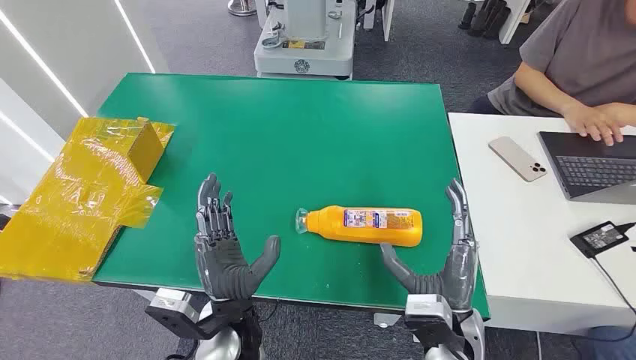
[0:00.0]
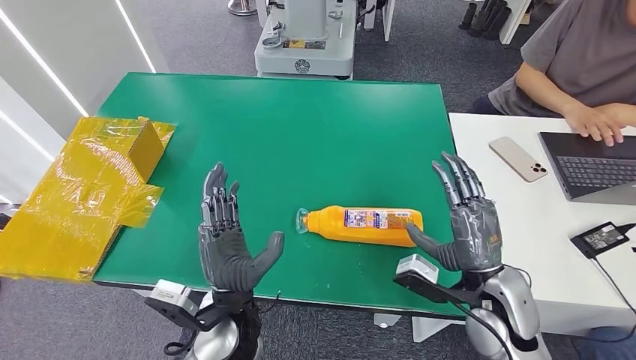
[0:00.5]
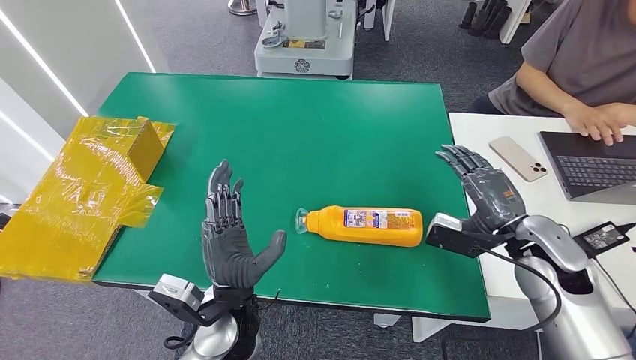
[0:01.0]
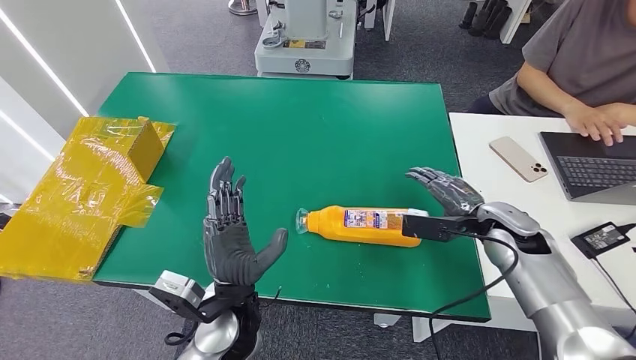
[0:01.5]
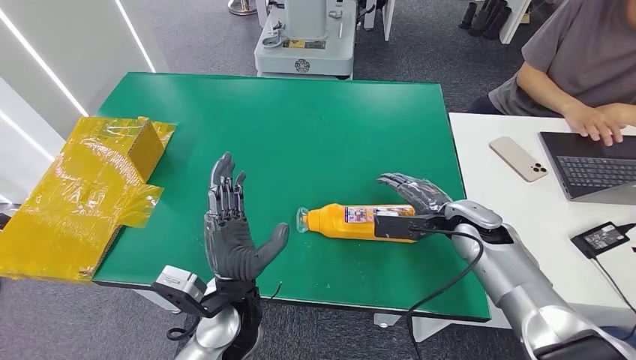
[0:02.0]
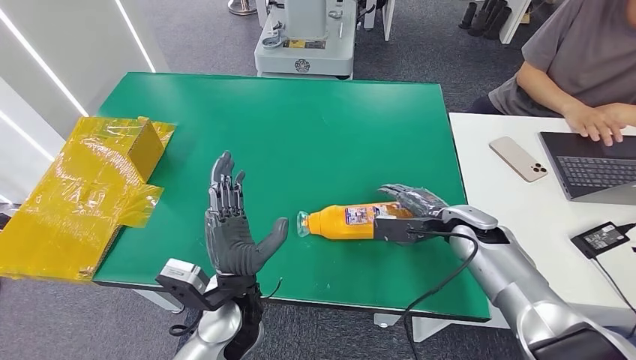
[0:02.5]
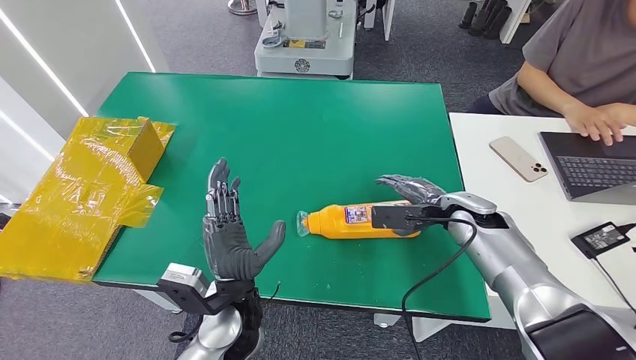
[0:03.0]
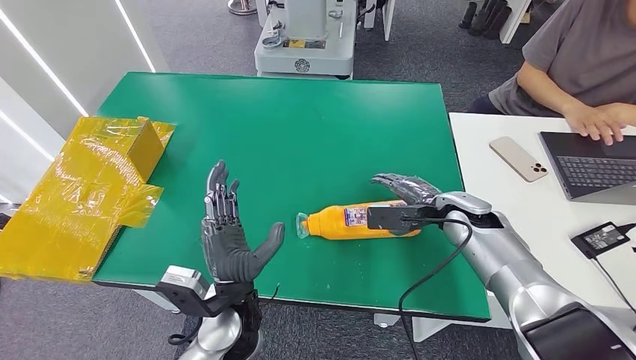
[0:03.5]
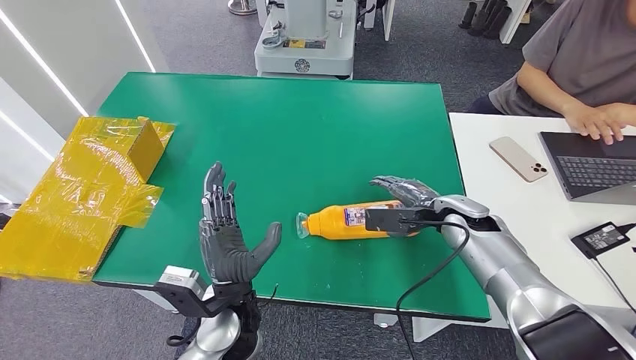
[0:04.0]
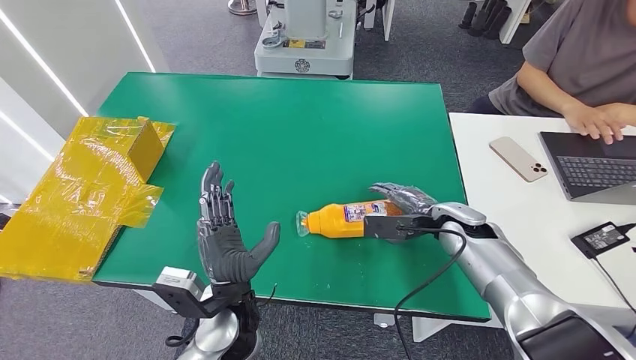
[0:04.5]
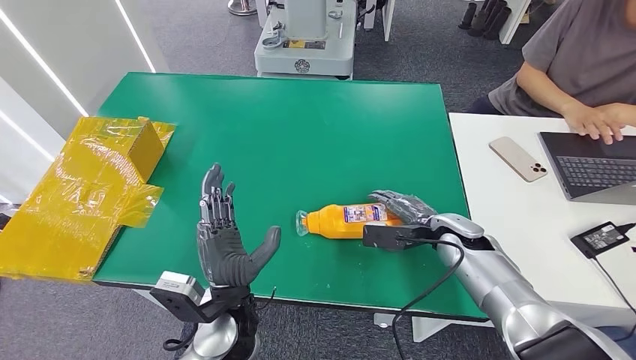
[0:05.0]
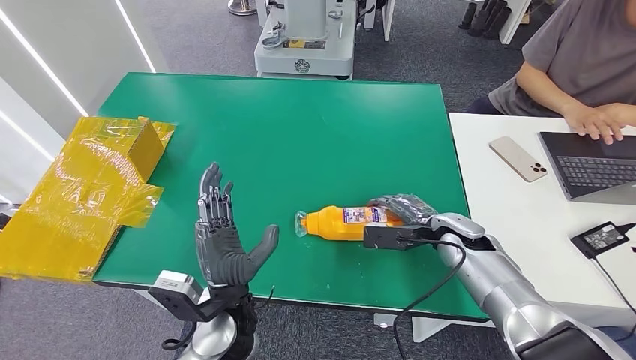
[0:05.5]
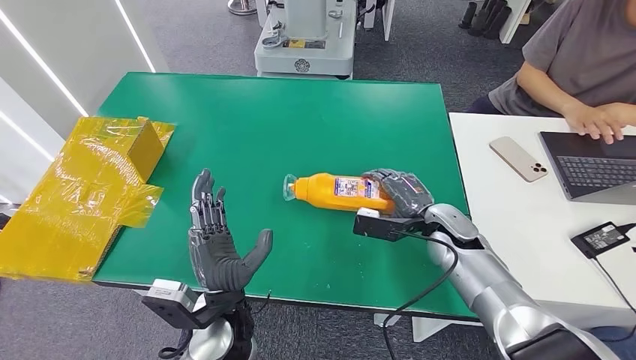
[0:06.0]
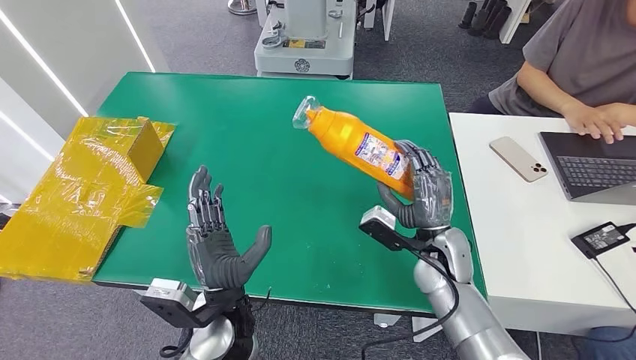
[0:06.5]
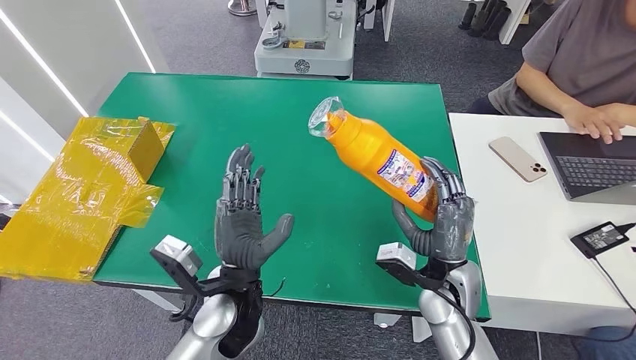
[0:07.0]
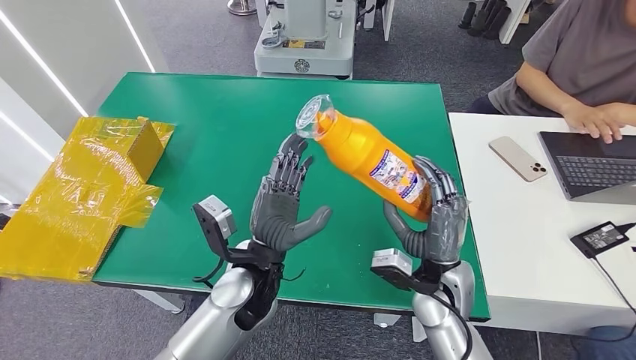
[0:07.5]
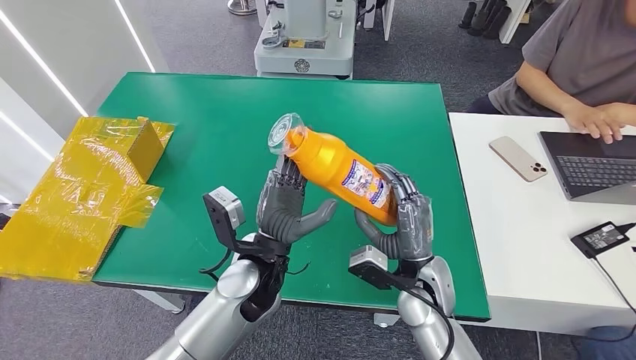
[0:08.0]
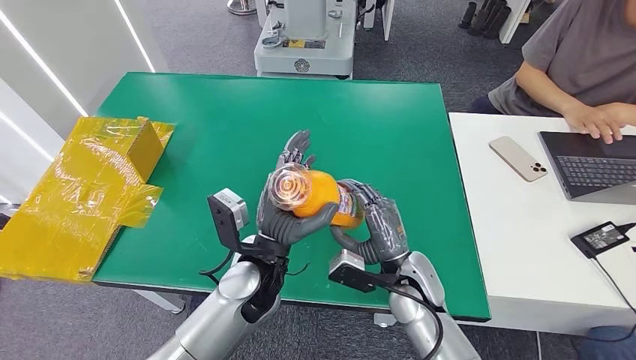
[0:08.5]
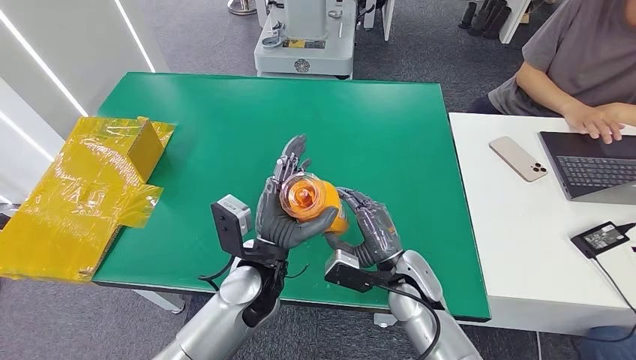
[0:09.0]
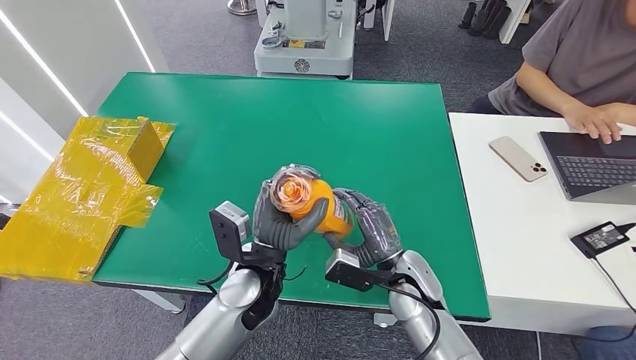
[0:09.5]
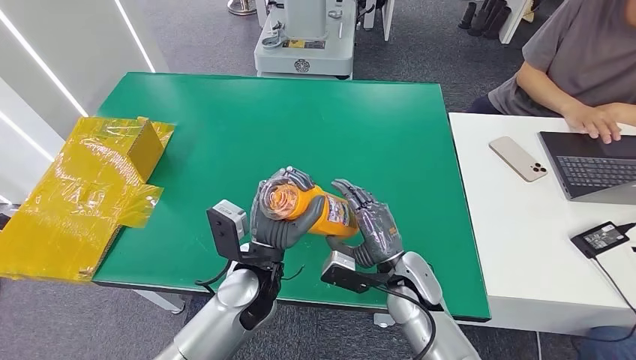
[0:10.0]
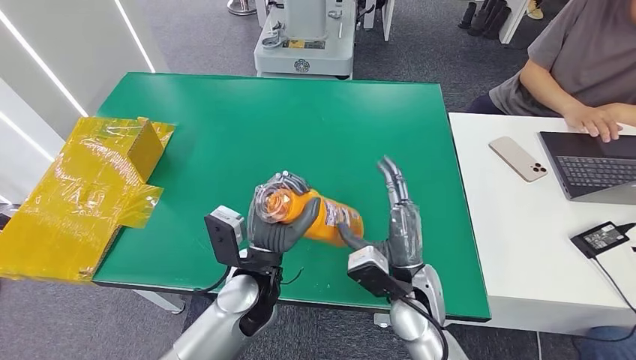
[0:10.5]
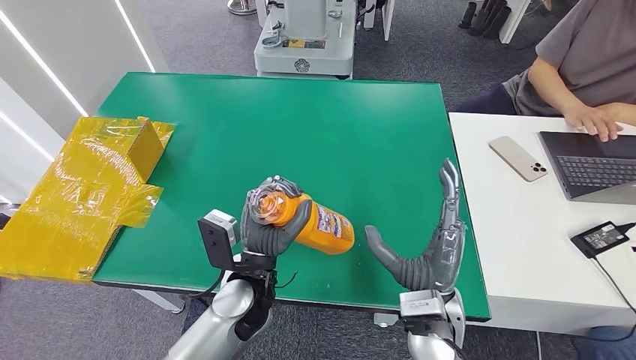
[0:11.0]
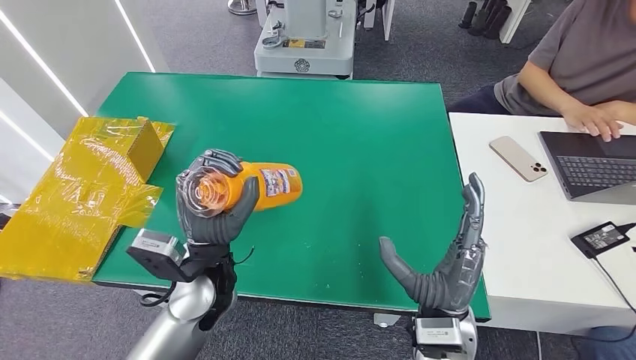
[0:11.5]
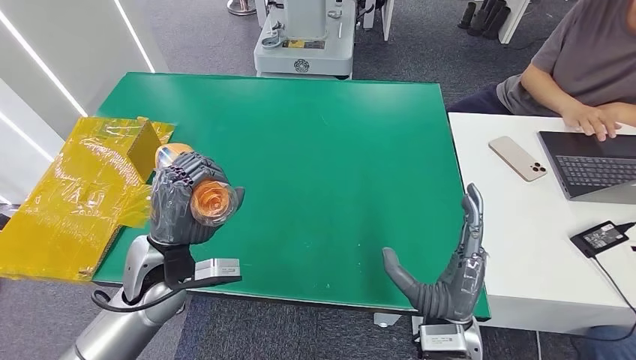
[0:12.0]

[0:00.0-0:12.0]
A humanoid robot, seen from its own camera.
Step, 0:00.0 to 0:06.5: Pick up the bottle from the table.
0:02.0 to 0:04.0: There are only small adjustments of the hands.
0:06.0 to 0:08.0: The left hand heads forward, covering roughly 10 cm. Meanwhile the right hand travels backward and to the left by roughly 15 cm.
0:10.0 to 0:12.0: The left hand shifts approximately 15 cm to the left, while the right hand travels backward and upward by roughly 10 cm.

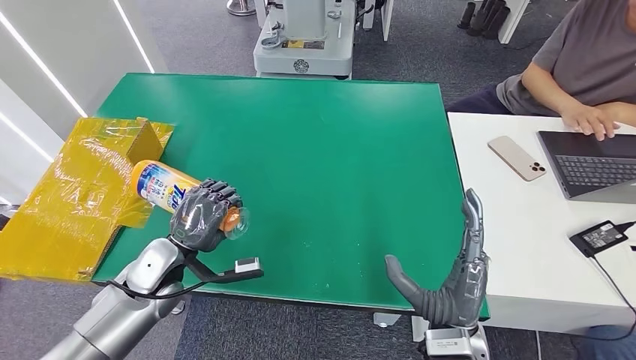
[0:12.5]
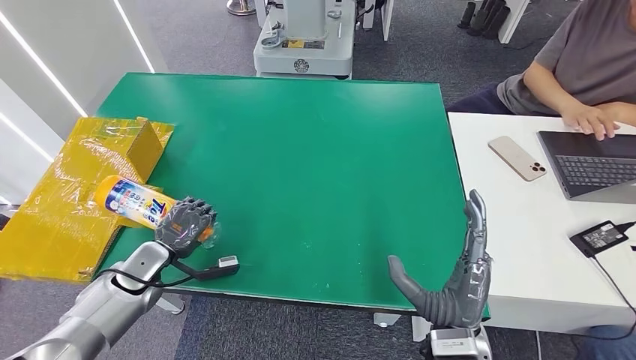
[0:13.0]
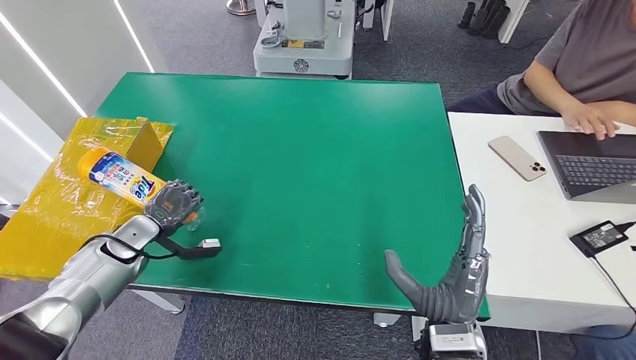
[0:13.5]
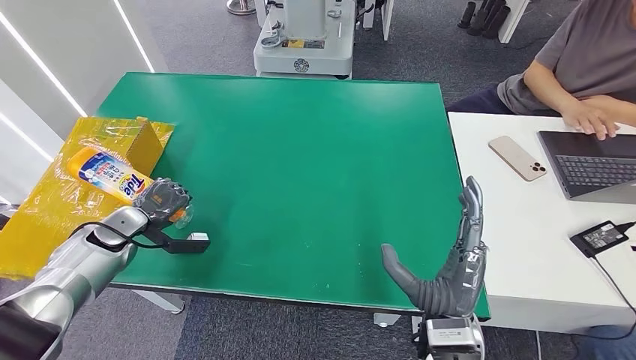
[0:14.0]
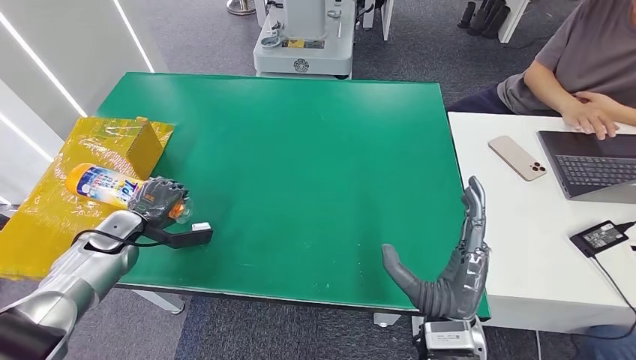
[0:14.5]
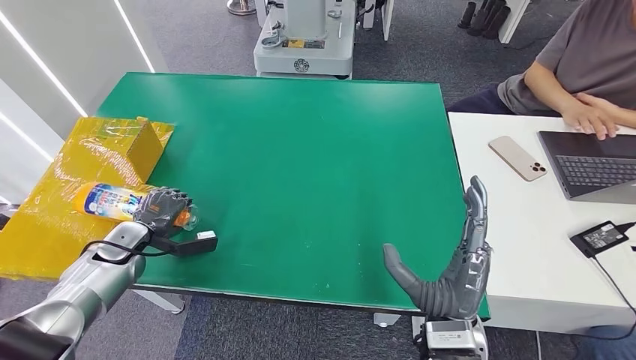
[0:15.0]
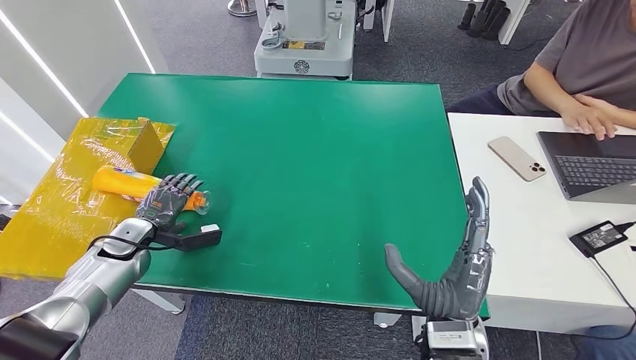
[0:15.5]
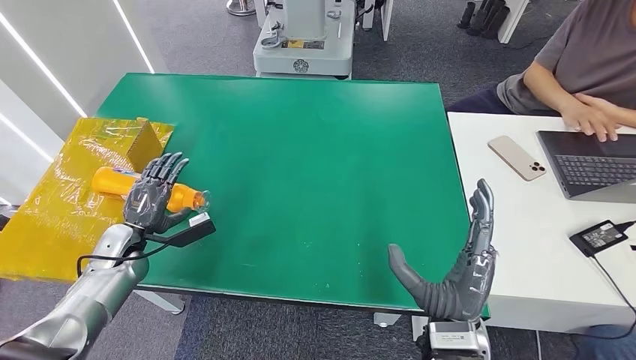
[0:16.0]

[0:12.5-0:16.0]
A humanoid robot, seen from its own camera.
Step, 0:12.5 to 0:16.0: Turn the bottle to the front side.
0:12.5 to 0:14.5: The left hand is displaced to the left by some 15 cm.
